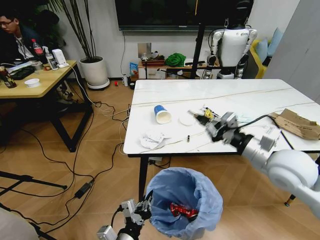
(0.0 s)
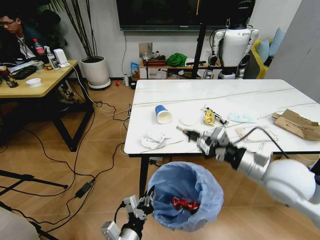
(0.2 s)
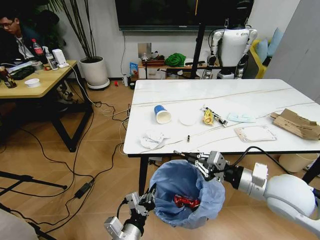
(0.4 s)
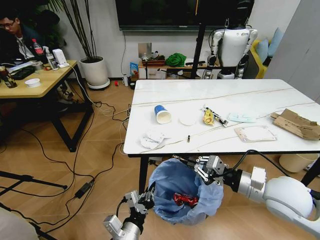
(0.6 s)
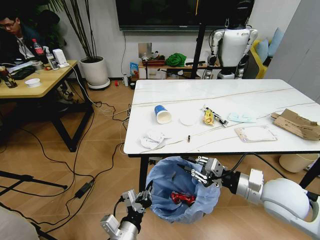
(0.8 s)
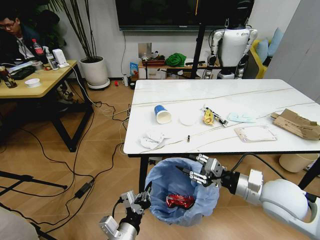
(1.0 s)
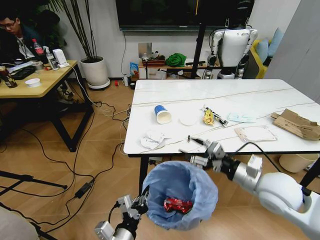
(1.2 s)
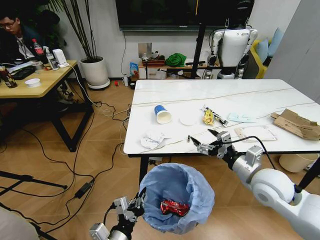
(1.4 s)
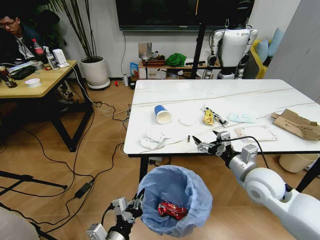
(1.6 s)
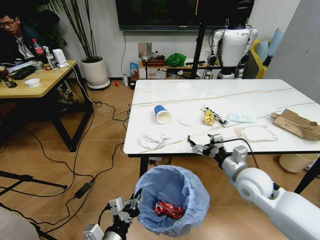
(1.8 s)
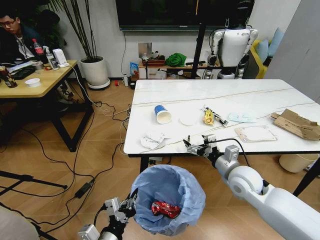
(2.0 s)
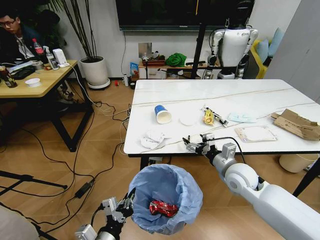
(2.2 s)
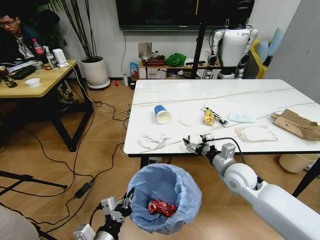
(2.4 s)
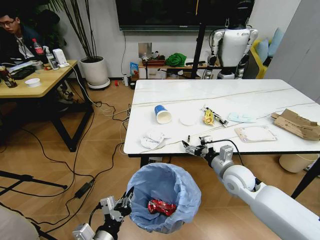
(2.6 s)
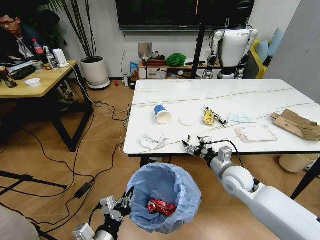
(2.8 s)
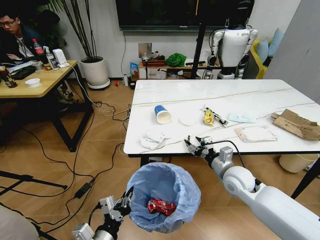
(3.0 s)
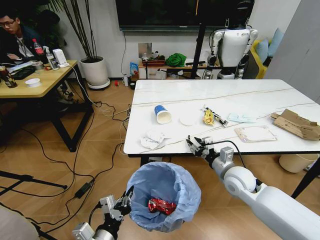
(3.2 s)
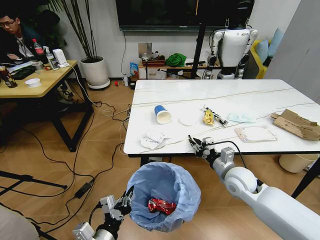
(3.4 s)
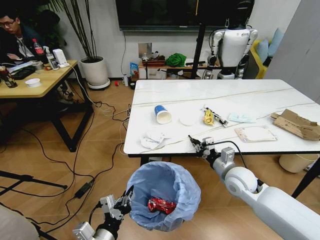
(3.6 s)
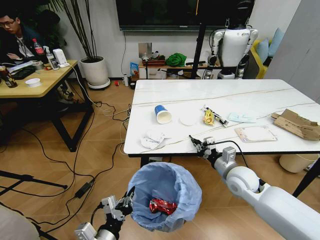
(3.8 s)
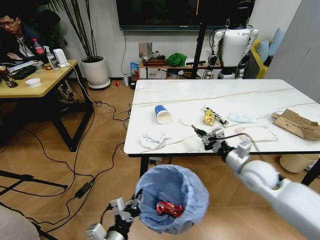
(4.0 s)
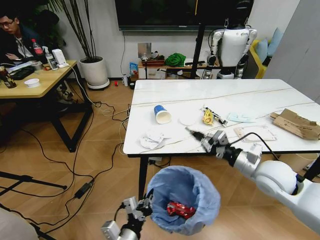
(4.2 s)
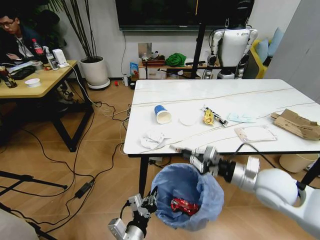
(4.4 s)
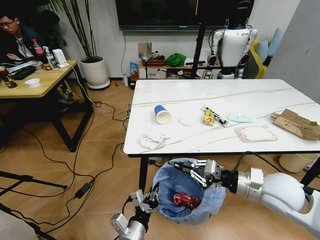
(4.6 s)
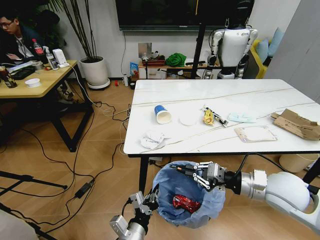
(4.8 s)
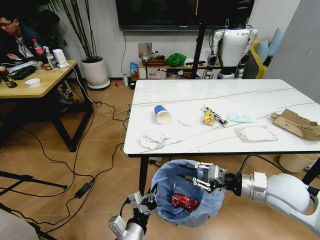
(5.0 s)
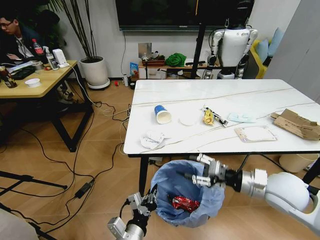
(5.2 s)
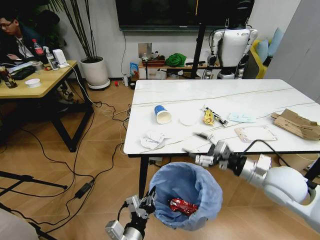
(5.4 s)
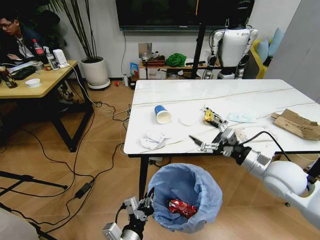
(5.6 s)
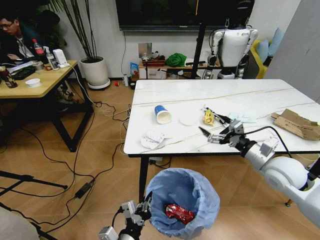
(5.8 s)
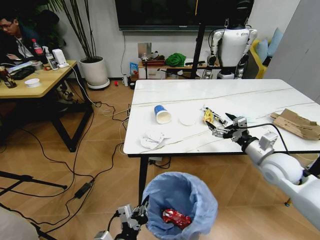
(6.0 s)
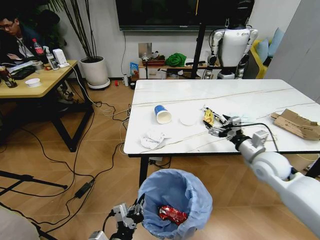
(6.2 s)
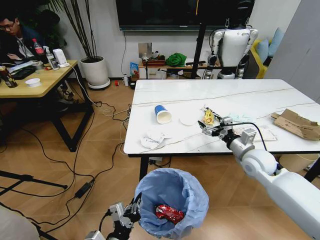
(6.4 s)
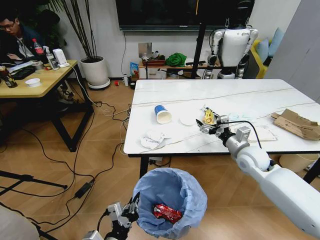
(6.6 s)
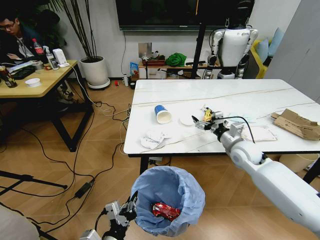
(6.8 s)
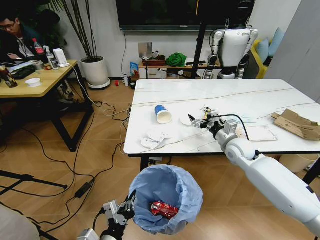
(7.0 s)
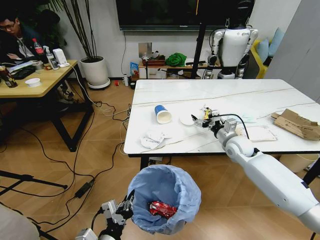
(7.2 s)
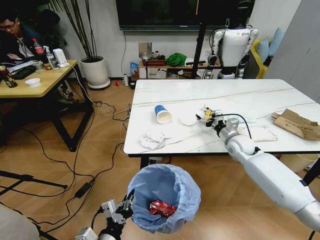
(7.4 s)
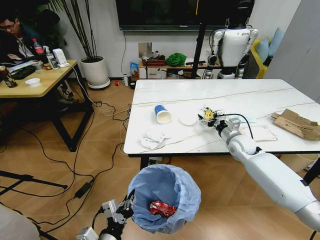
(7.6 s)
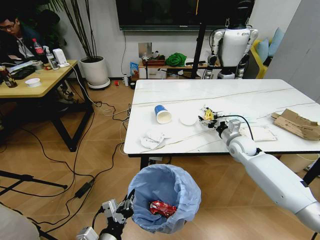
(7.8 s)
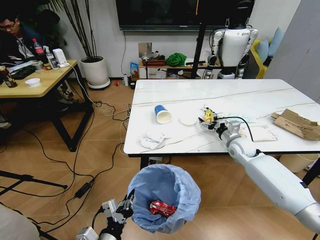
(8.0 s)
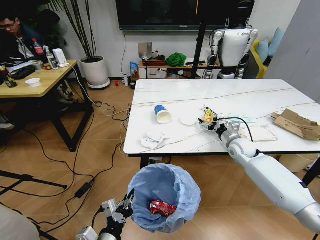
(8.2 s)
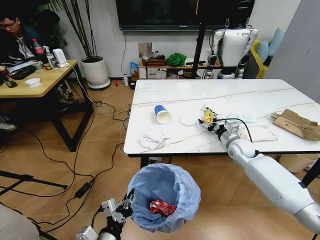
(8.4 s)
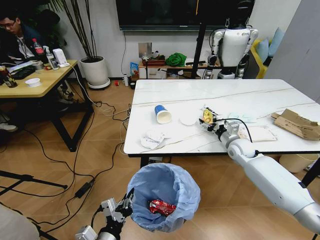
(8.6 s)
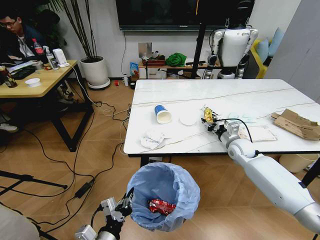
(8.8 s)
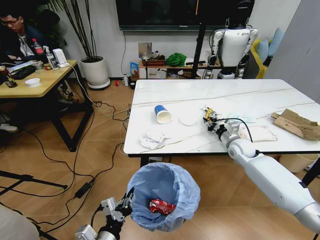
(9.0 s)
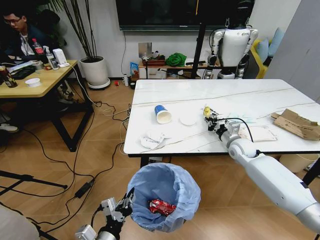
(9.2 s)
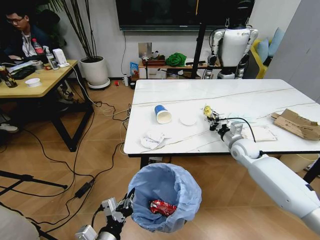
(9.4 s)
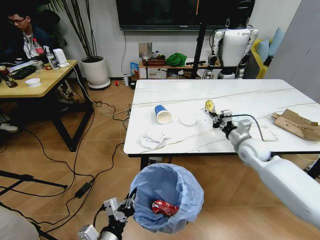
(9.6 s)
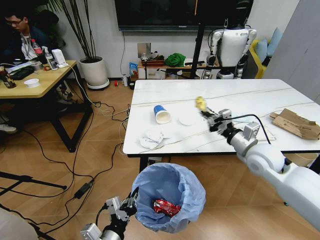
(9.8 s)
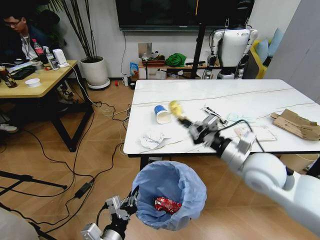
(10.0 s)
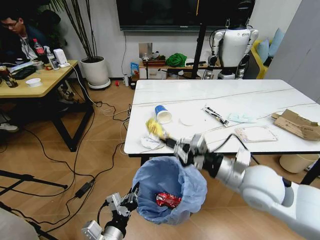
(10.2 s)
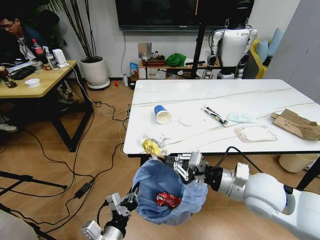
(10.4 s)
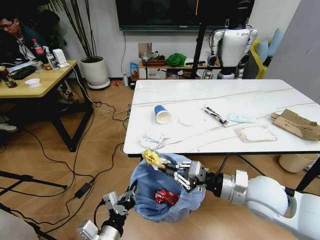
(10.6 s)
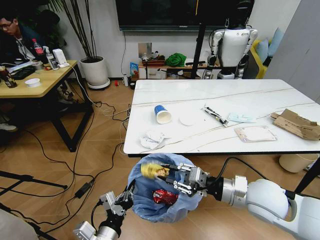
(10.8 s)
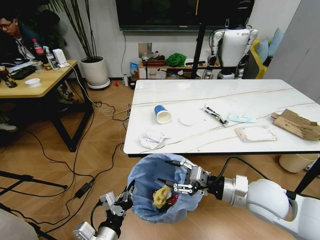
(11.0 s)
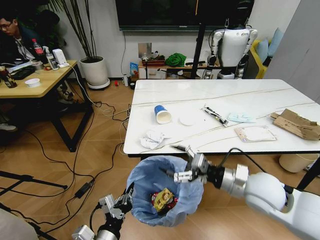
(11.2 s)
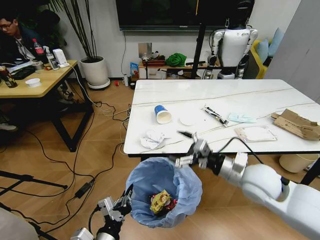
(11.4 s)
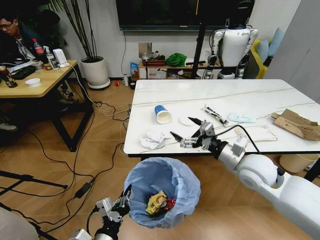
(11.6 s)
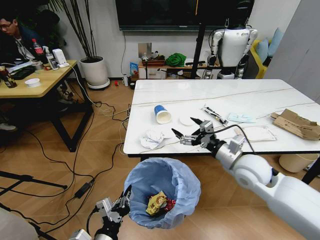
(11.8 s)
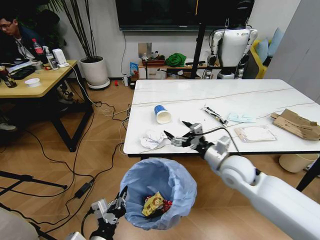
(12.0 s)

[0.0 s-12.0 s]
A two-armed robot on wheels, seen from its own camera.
Task of the whole recording: Pick up the trash bin and place the trash from the table into it.
0.0 to 1.6 s: The right gripper goes about 10 cm downward, and opens its fingers.
1.6 to 3.0 s: The right gripper heads downward, covering some 5 cm, and closes its fingers.
3.0 to 4.4 s: The right gripper travels upward and backward by about 10 cm, and closes its fingers; the left gripper moves to the right, some 10 cm.
4.4 to 6.0 s: The right gripper is displaced to the right and forward by some 10 cm, and opens up.
6.0 to 7.6 s: The right gripper shifts approximately 15 cm forward and downward.
7.6 to 9.0 s: The right gripper closes up.
9.0 to 10.4 s: The right gripper is displaced backward and upward by some 25 cm.
10.4 to 12.0 s: The right gripper heads forward, covering some 10 cm, and opens its fingers.

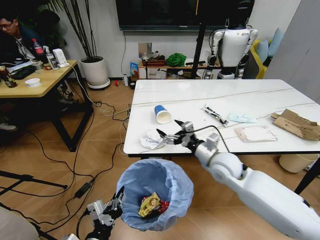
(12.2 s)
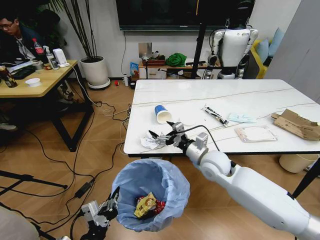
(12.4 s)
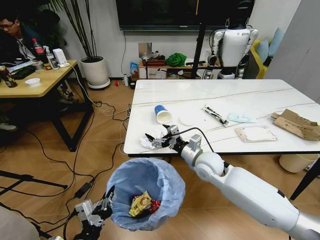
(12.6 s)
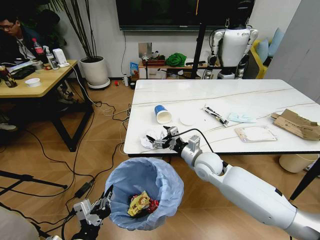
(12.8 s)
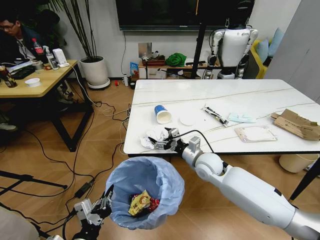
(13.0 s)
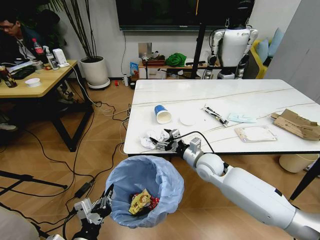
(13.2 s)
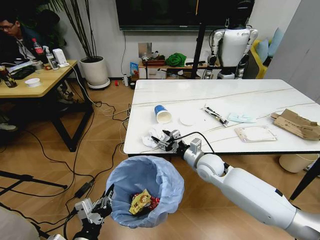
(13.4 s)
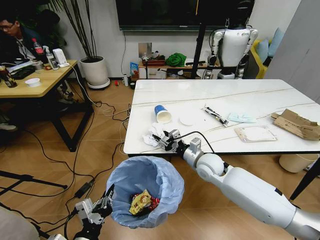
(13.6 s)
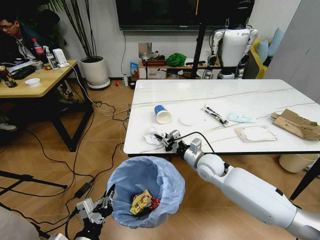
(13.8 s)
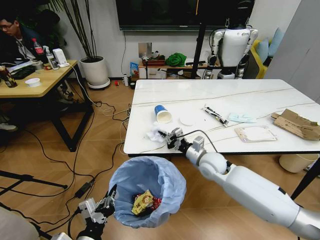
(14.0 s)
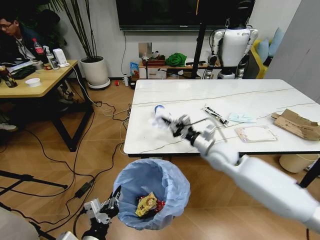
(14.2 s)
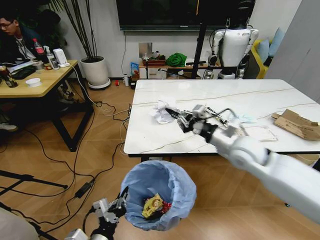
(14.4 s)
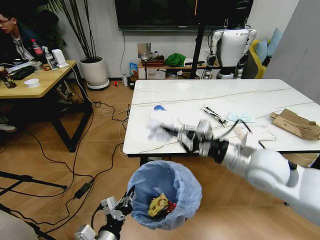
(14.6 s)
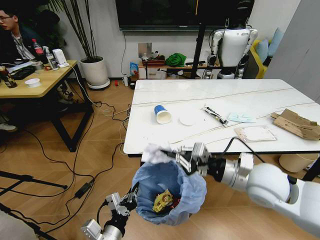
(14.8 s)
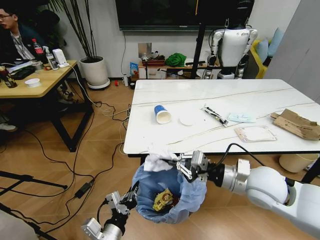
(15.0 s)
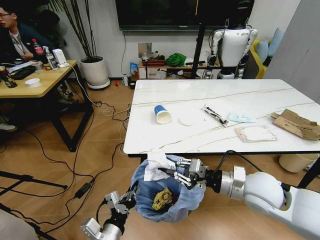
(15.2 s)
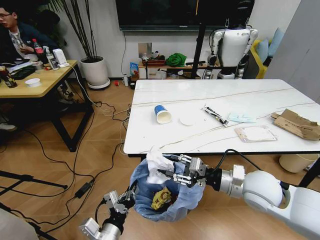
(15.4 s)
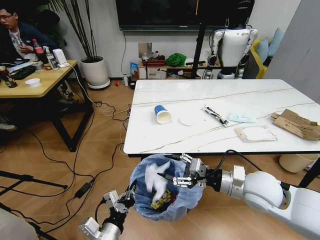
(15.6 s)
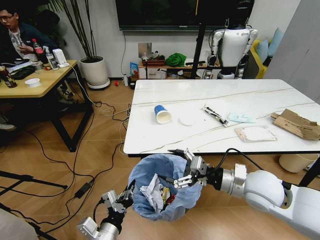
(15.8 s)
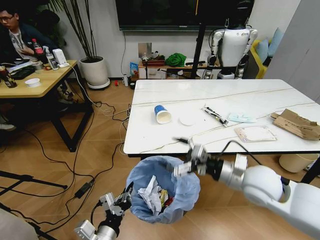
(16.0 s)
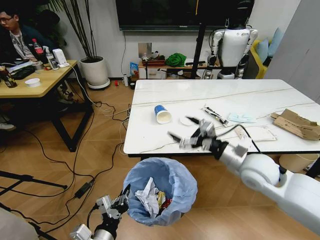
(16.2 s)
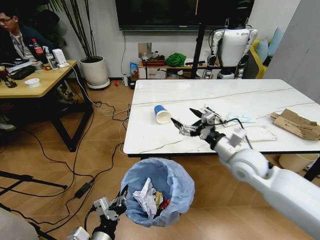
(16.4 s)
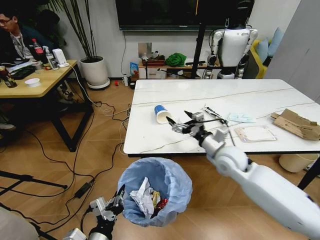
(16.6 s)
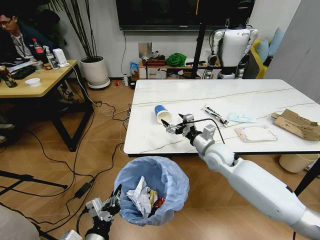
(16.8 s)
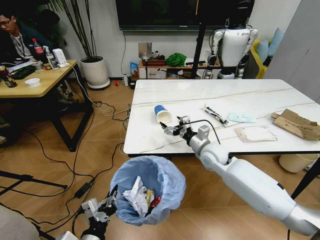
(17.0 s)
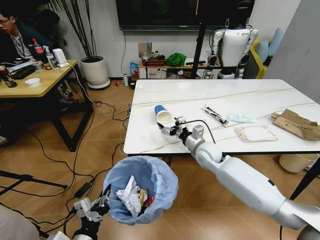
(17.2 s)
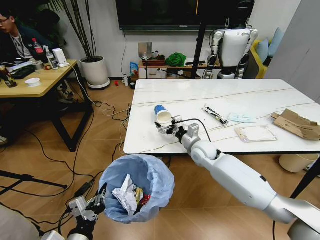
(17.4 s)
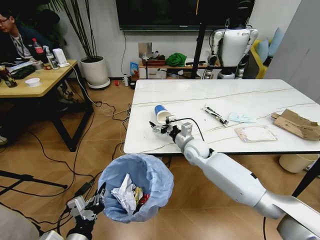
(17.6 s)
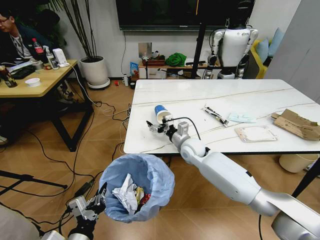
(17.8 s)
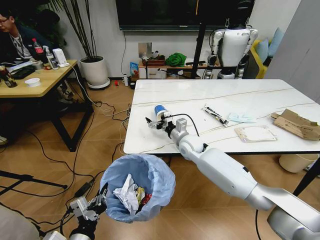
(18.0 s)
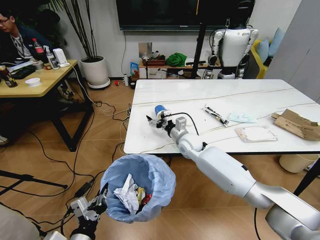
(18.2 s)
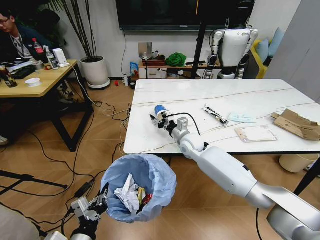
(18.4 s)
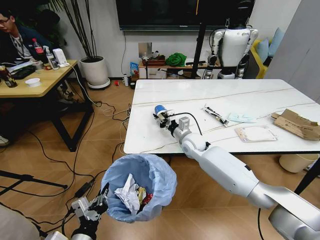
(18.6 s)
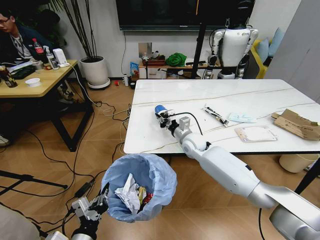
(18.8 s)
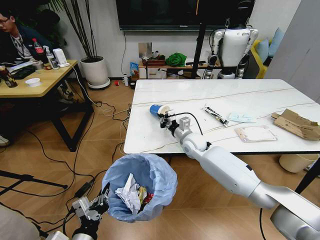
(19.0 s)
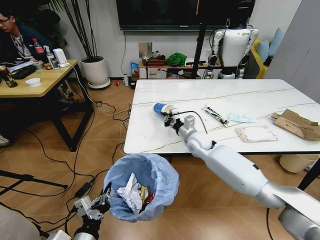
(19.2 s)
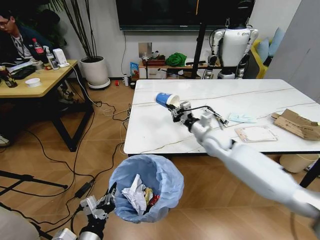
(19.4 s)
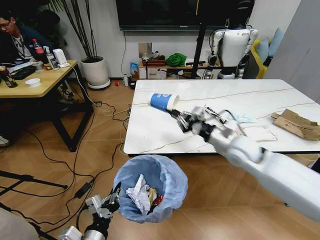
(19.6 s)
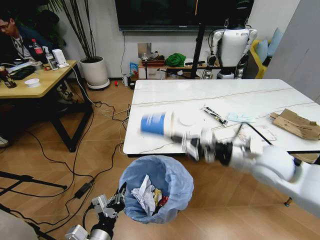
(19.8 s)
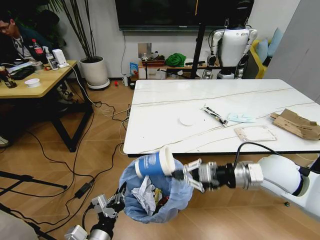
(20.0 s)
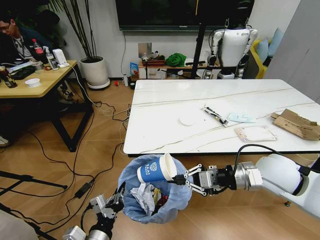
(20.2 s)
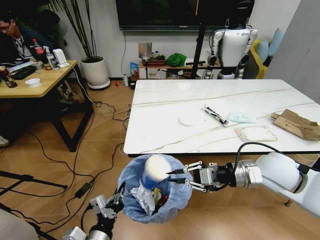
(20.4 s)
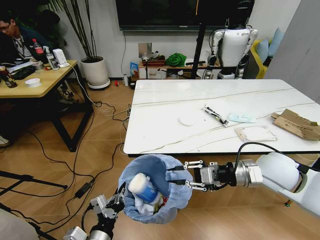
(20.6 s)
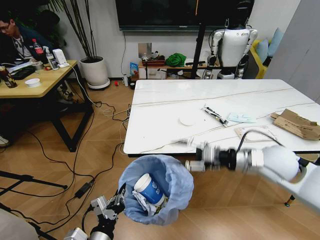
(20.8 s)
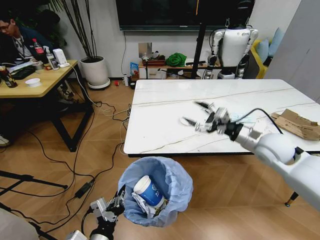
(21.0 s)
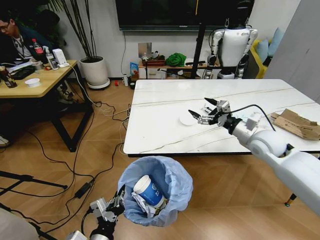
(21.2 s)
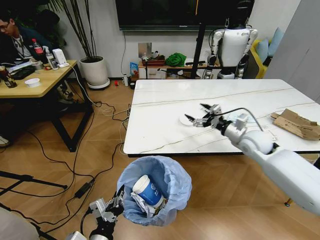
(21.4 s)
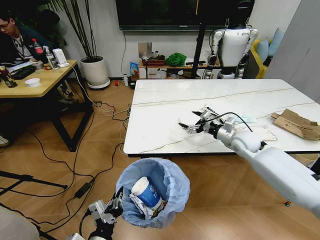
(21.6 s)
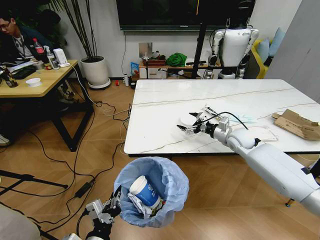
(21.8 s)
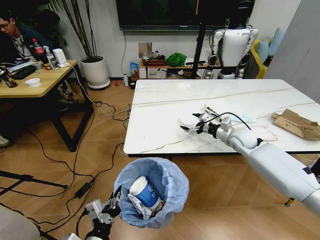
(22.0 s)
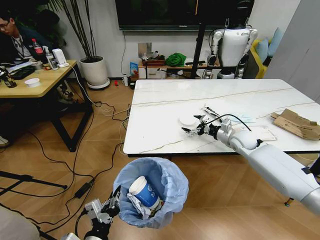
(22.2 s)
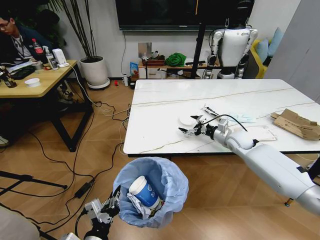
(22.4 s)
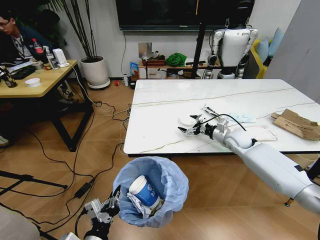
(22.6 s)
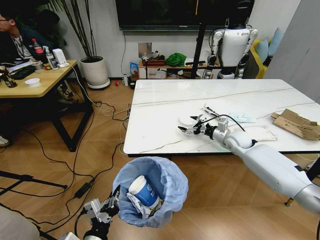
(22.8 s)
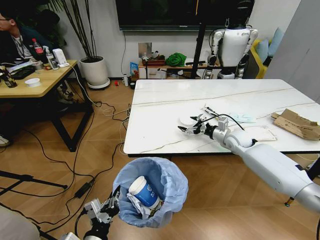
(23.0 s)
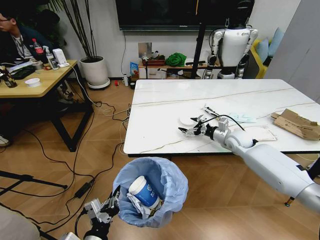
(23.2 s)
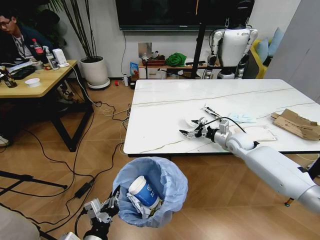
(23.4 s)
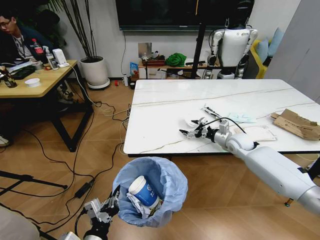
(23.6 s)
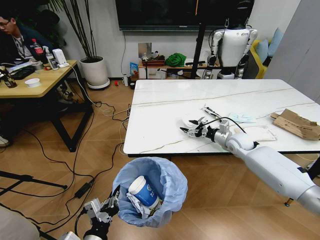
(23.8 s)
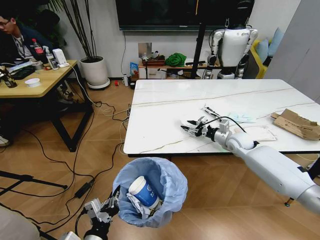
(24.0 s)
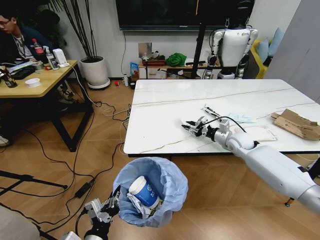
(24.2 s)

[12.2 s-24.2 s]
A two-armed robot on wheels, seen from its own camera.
Task of the whole recording: Pick up the trash bin and place the trash from the table into it.
12.2 to 13.8 s: The right gripper travels downward by approximately 5 cm, and closes.
13.8 to 15.2 s: The left gripper moves about 5 cm; the right gripper heads backward, upward and to the right, covering roughly 20 cm.
15.2 to 16.6 s: The right gripper moves forward, roughly 10 cm, and opens its fingers.
16.6 to 18.2 s: The right gripper heads forward, to the left and downward, covering approximately 15 cm.
18.2 to 19.8 s: The right gripper goes some 25 cm backward, to the right and upward, and closes.
19.8 to 21.2 s: The right gripper shifts roughly 10 cm forward and to the right, and opens.
21.2 to 22.6 s: The right gripper moves downward and forward, some 15 cm.
22.6 to 24.2 s: The right gripper closes.
